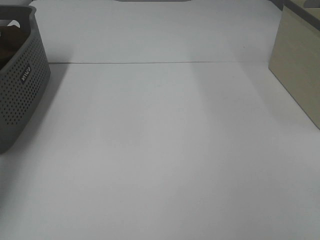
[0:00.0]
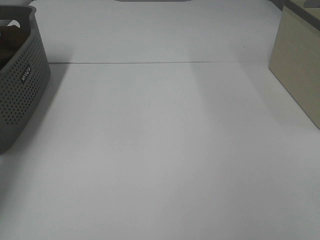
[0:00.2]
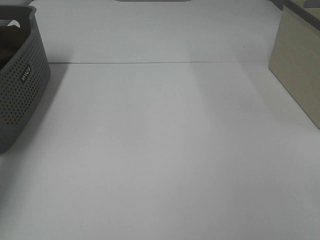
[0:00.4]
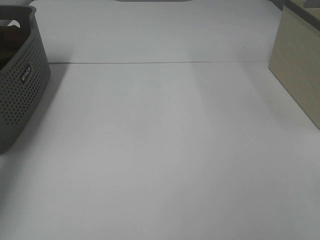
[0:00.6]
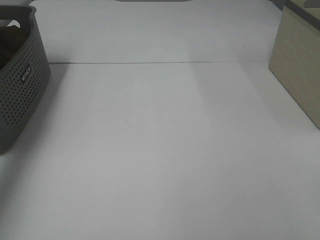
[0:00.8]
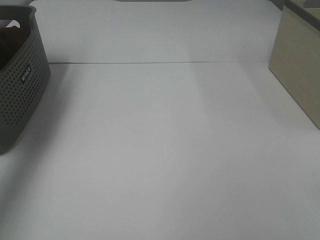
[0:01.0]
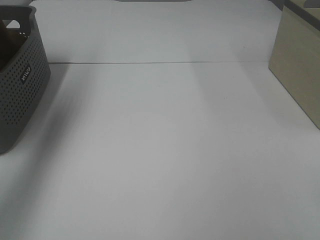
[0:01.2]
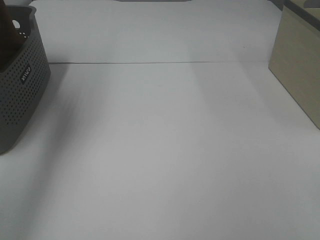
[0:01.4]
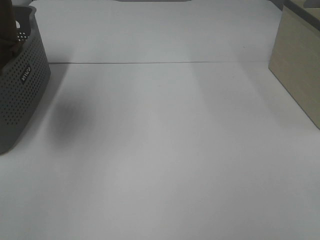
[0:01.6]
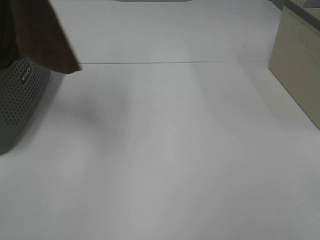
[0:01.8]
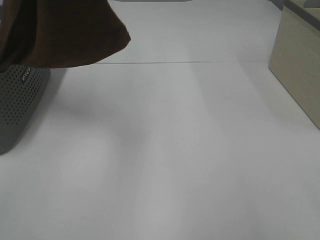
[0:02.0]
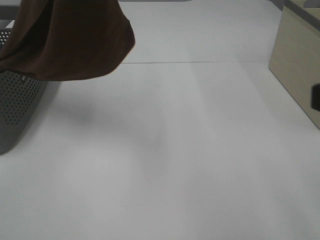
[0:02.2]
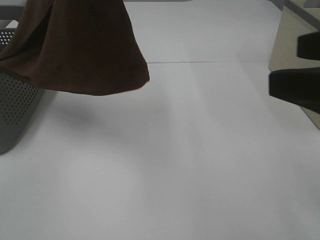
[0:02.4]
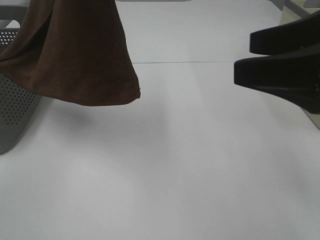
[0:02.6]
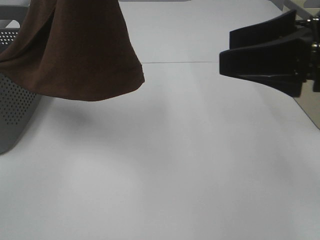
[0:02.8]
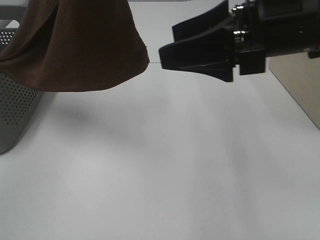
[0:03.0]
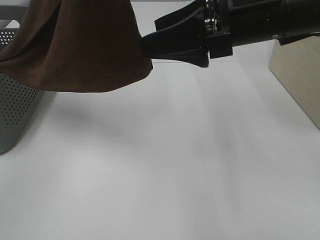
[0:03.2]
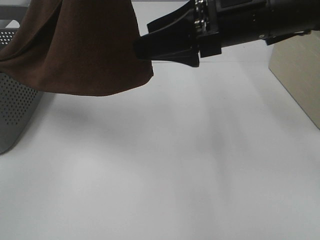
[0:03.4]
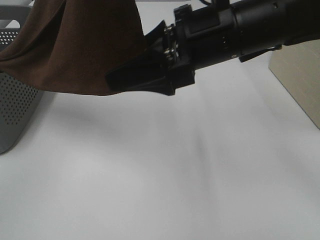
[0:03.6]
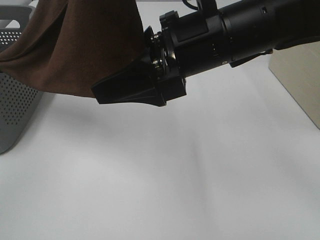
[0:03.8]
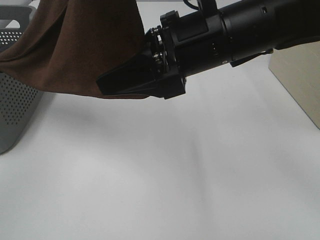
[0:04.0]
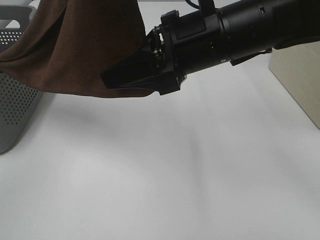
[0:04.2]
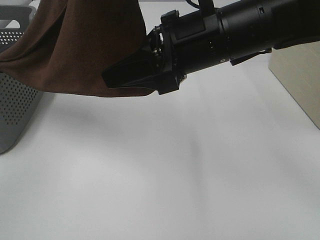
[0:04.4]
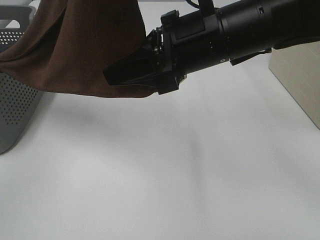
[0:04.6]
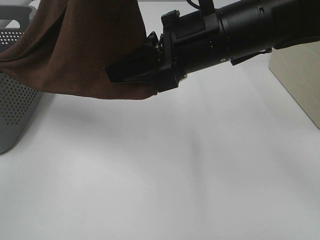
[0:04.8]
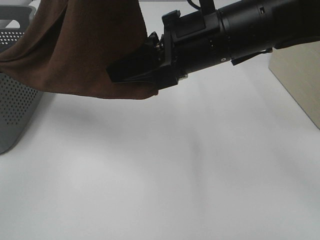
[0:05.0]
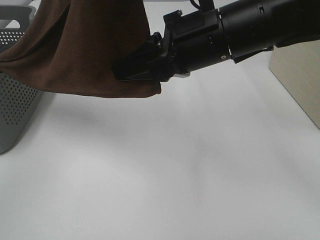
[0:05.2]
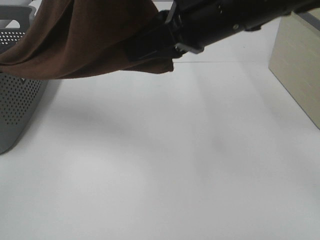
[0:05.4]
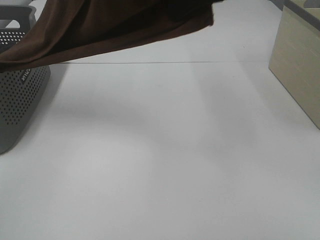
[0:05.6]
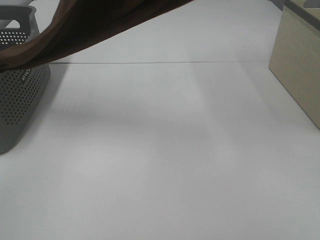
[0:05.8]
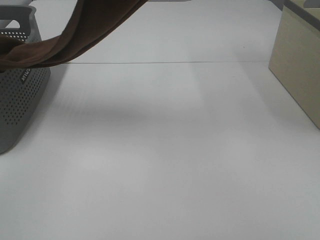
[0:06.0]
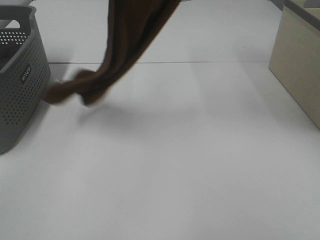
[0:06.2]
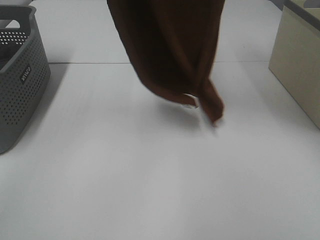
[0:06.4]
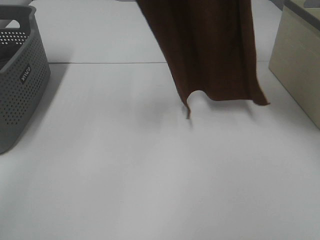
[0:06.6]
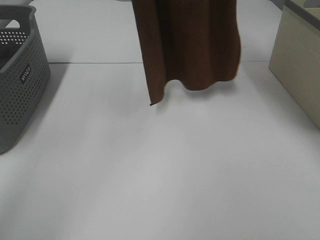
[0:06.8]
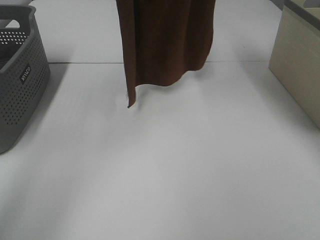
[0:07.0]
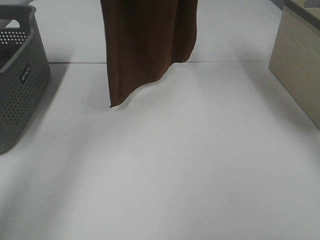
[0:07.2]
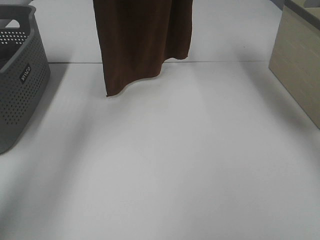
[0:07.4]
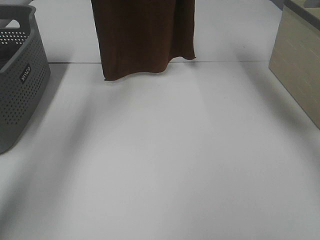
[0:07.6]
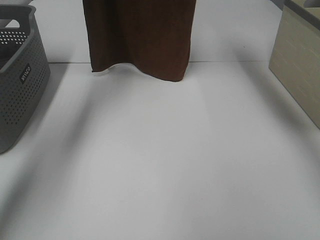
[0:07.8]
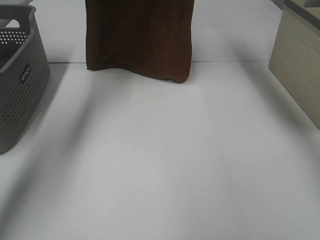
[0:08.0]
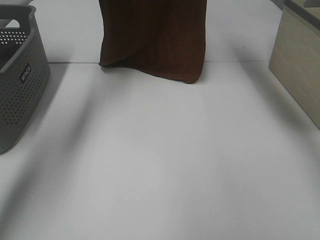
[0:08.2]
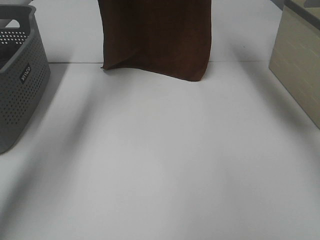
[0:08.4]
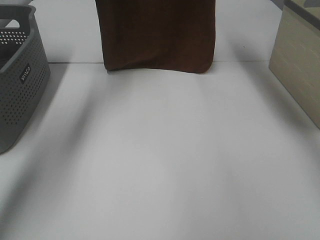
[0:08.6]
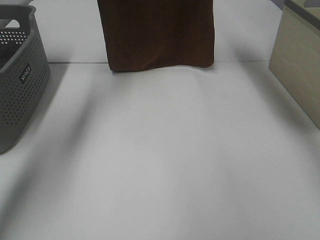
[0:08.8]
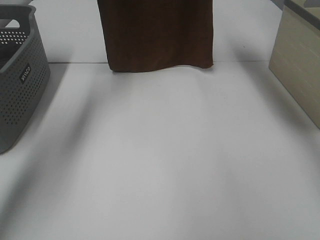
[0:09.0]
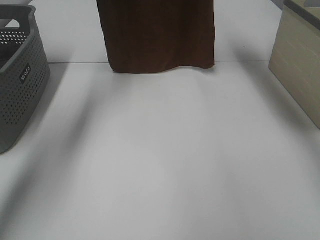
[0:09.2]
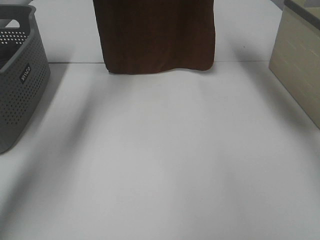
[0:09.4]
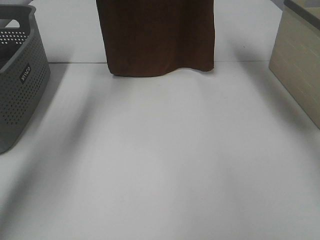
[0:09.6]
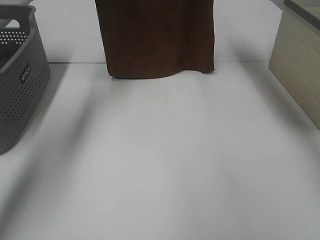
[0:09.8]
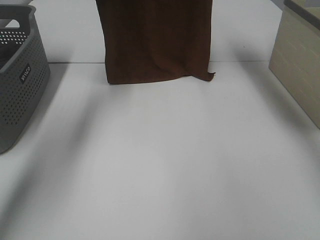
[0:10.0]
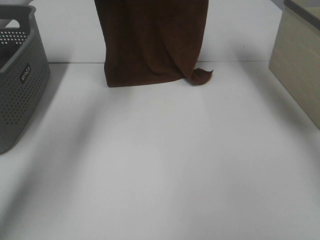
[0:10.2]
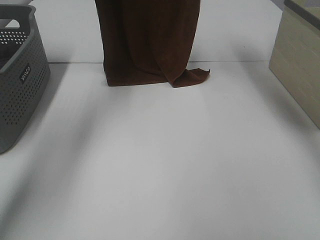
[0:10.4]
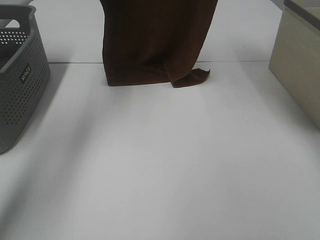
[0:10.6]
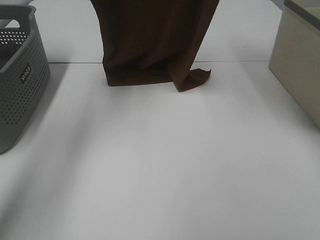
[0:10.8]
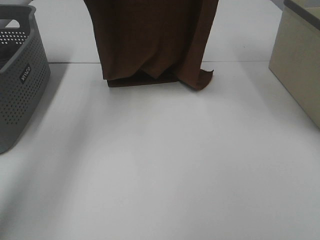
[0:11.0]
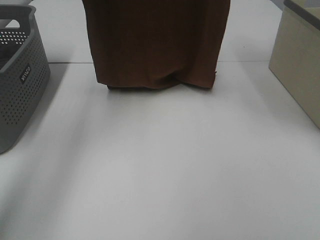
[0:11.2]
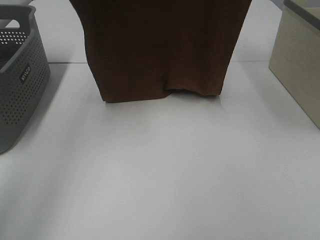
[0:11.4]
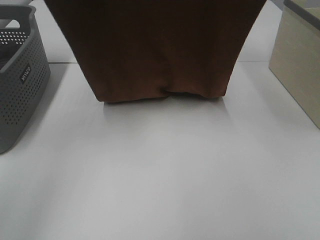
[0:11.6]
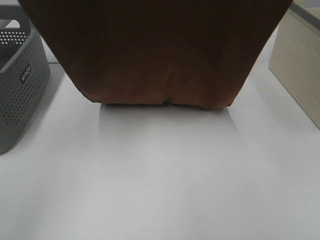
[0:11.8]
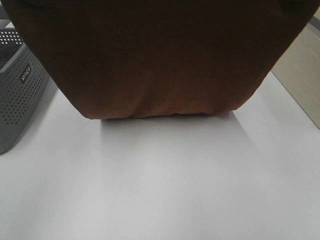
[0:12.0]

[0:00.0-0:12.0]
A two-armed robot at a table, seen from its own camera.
Task of the whole recording: Remove the towel and place it.
Step, 1.0 to 5.4 s: Right hand: grab a corner of the brown towel and straighten it.
Step, 5.6 to 11.0 s: Left hand: spread the brown towel flat on the table.
Step, 5.6 to 11.0 s: Right hand: spread the brown towel flat on the table.
0.0 to 1.6 s: The left gripper heads upward, to the right and backward, covering roughly 35 cm.
1.6 to 3.0 s: The left gripper moves to the right and backward, approximately 15 cm, while the right gripper heads forward and to the left, covering approximately 30 cm.
3.0 to 4.4 s: The right gripper shifts about 10 cm to the left, and closes.
4.4 to 6.0 s: The right gripper heads upward, covering approximately 25 cm, and closes up.
6.0 to 7.6 s: The two grippers go roughly 20 cm forward.
7.6 to 9.0 s: The grippers move only a little.
9.0 to 10.4 s: The right gripper travels downward by about 5 cm.
10.4 to 12.0 s: The two grippers go some 25 cm backward.

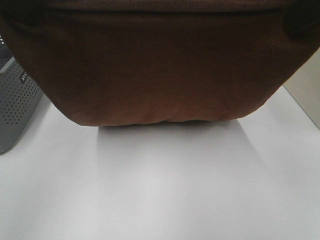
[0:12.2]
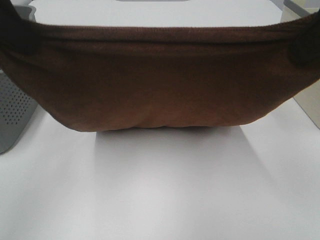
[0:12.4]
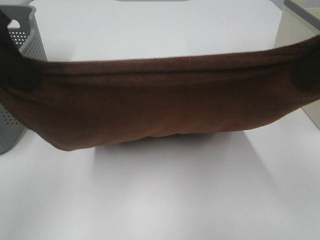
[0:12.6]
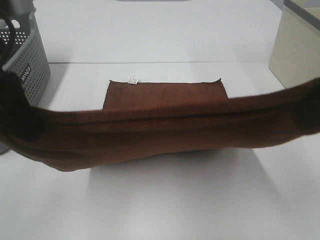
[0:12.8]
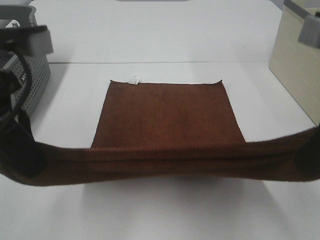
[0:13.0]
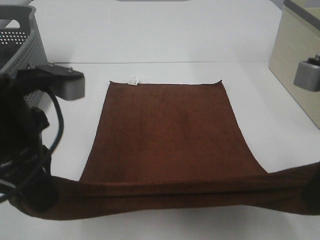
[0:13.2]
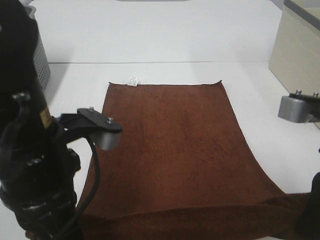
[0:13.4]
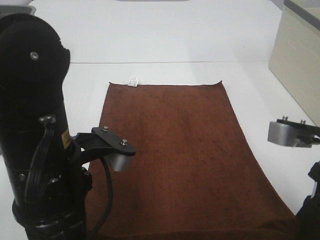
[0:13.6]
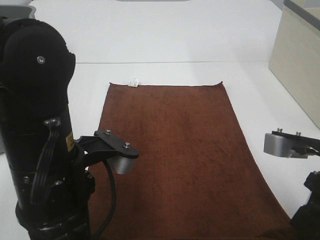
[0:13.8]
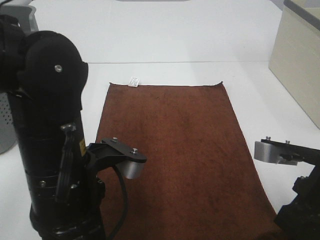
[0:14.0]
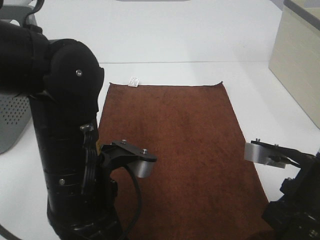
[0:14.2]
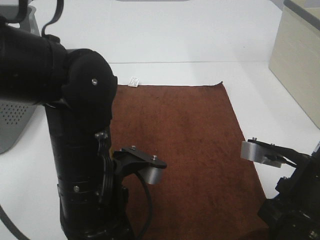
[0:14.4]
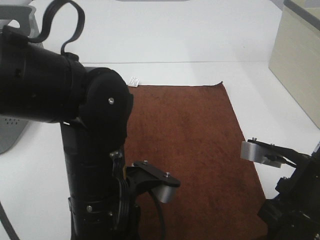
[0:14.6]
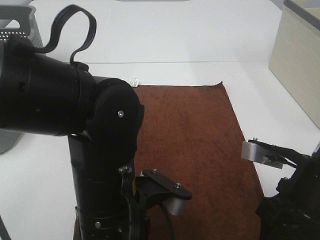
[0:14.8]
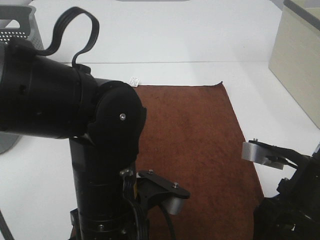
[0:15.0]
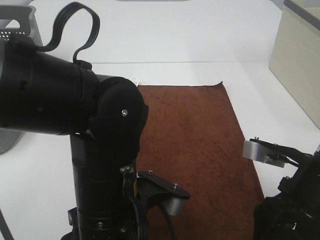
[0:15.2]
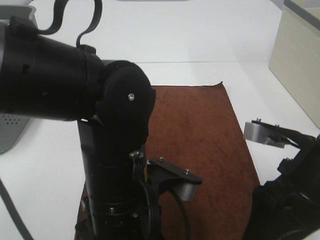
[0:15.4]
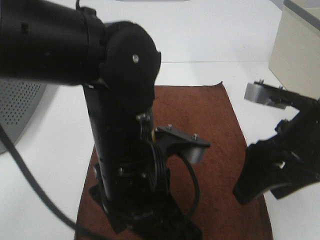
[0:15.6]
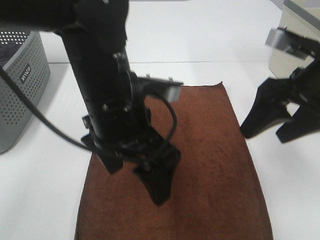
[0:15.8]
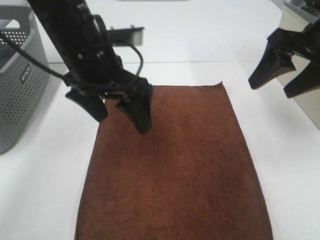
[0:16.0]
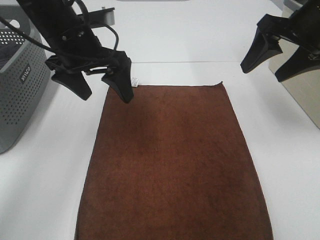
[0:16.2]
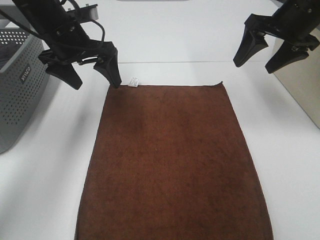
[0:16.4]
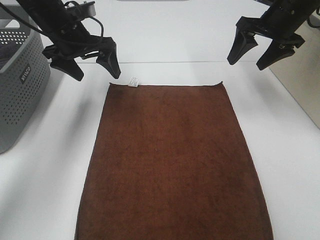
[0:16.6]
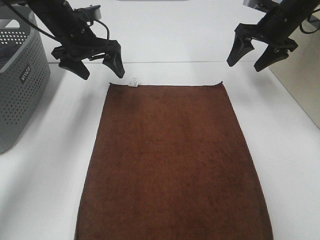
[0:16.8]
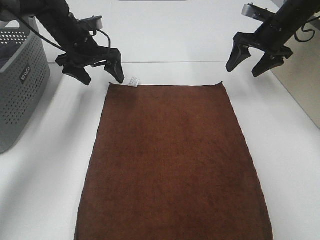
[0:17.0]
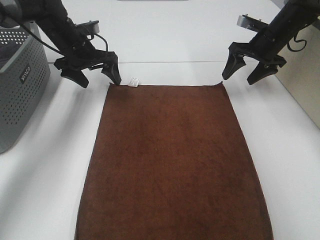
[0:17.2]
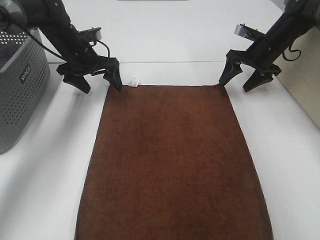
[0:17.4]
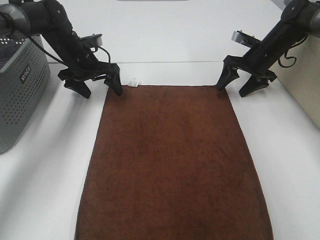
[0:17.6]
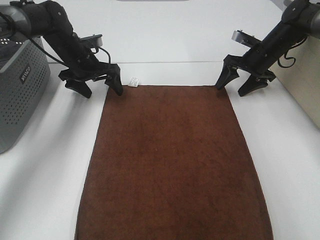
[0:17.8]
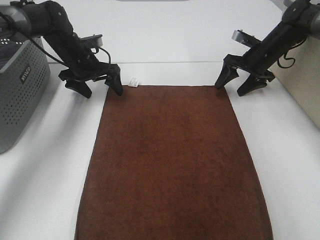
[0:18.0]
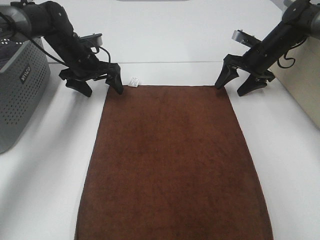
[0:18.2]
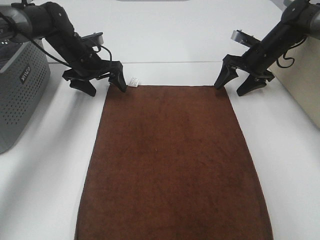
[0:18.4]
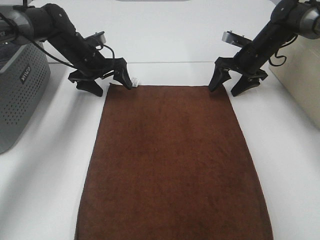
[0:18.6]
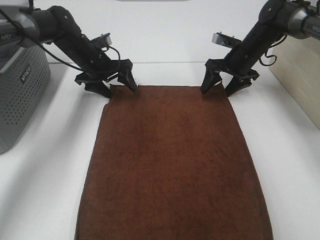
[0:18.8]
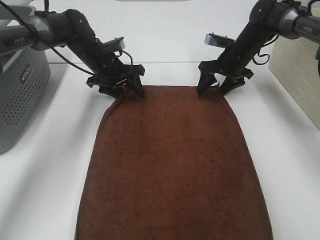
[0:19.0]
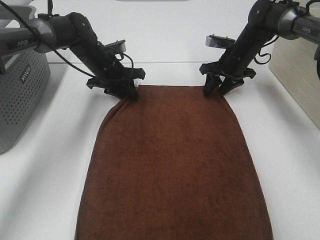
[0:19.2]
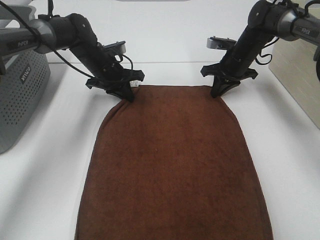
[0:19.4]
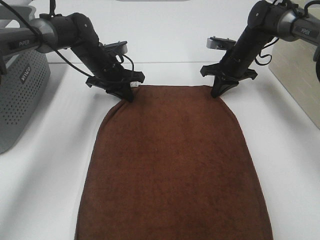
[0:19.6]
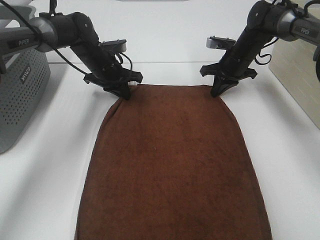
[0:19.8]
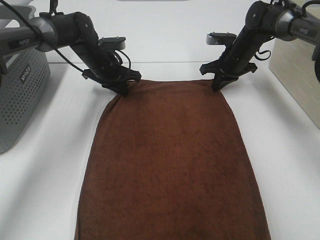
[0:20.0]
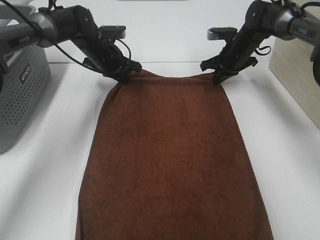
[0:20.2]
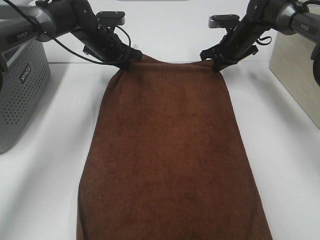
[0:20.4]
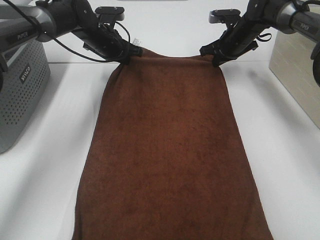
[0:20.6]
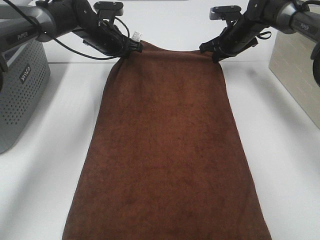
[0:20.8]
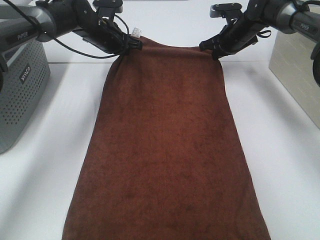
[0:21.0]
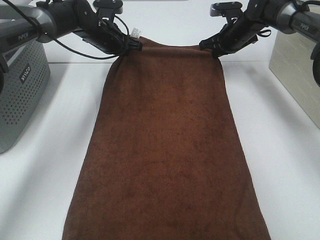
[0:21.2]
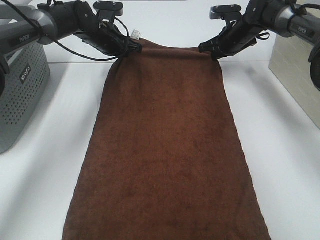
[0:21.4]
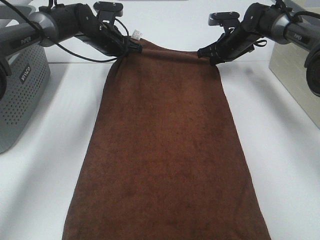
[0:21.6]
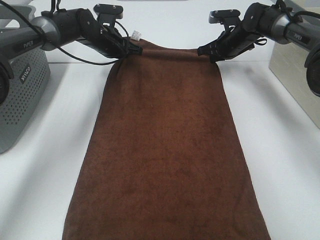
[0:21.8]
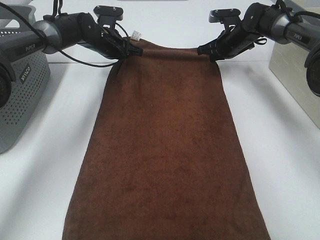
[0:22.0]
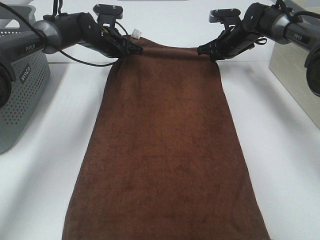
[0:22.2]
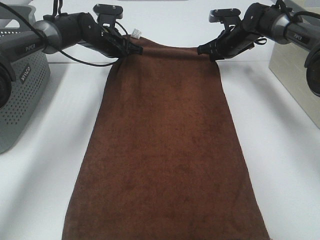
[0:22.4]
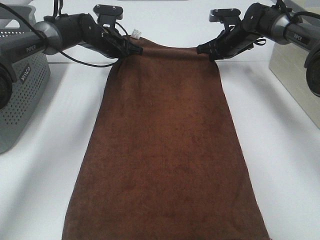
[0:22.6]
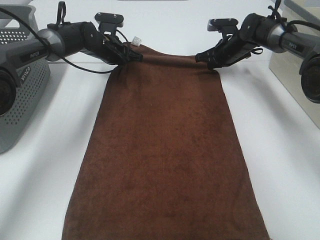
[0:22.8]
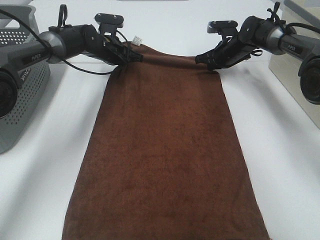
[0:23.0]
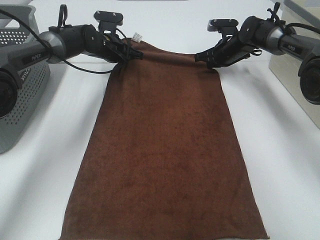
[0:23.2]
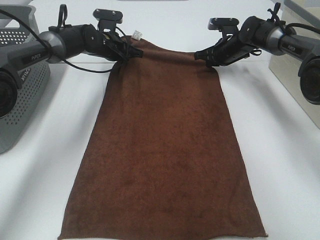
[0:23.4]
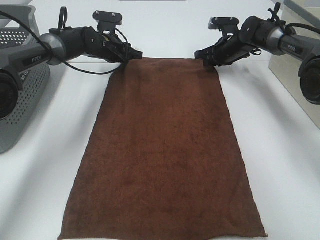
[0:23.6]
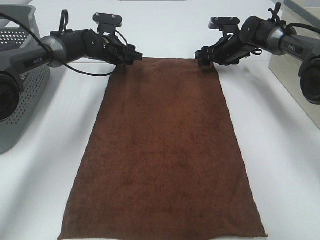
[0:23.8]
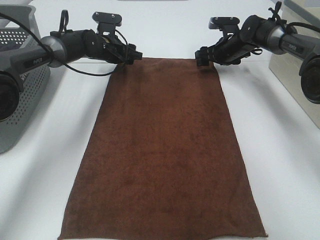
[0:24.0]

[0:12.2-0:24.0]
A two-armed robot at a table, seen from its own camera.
Task of the whole recording: Remove the towel and place it.
Step, 12.2 to 18.6 s: Left hand:adjust the brown towel.
Step, 12.2 to 18.6 s: Right hand:adjust the brown towel.
12.2 to 13.6 s: The right gripper heads downward, covering some 20 cm; the left gripper shifts about 25 cm downward, to the right and backward.
13.6 to 15.2 s: The right gripper shifts by approximately 5 cm, and opens up. Meanwhile the left gripper goes approximately 5 cm to the right, and opens.
15.2 to 16.6 s: The left gripper shifts roughly 35 cm forward and to the left. The right gripper shifts some 30 cm forward.
16.6 to 18.2 s: Both grippers travel together downward and forward, approximately 15 cm.
18.2 to 19.6 s: The right gripper moves to the left, roughly 5 cm, and closes its fingers; the left gripper moves to the right, approximately 5 cm, and closes up.
19.6 to 21.0 s: The left gripper heads upward, covering some 5 cm, while the right gripper moves approximately 5 cm.
21.0 to 22.6 s: The grippers move only a little.
22.6 to 24.0 s: The right gripper opens its fingers; the left gripper opens.
